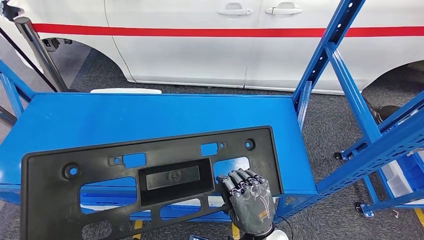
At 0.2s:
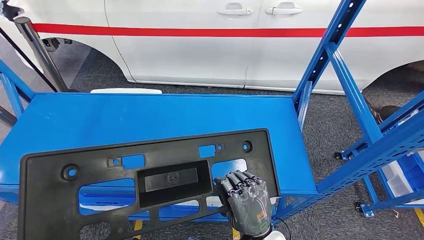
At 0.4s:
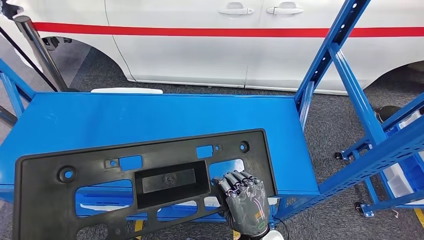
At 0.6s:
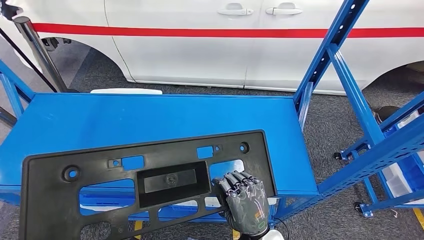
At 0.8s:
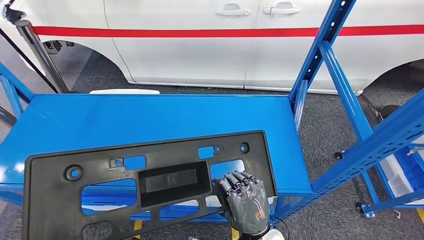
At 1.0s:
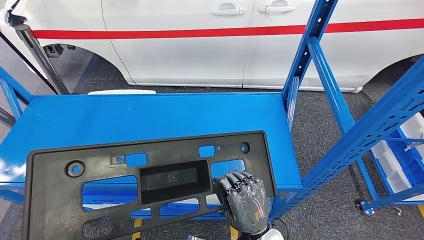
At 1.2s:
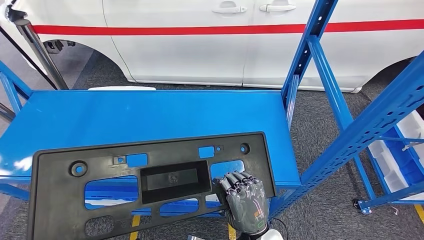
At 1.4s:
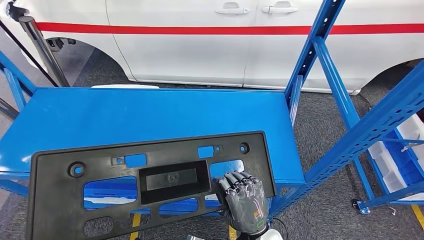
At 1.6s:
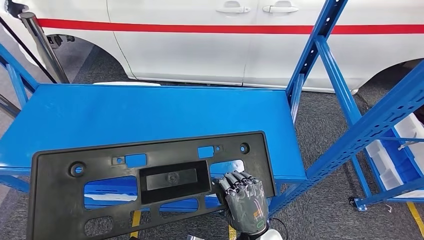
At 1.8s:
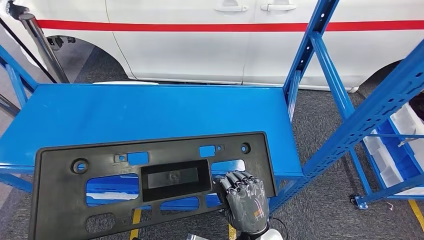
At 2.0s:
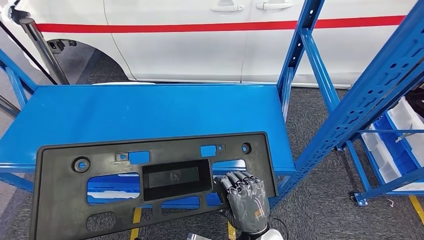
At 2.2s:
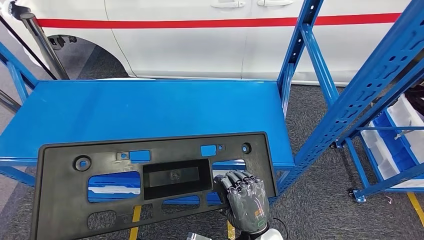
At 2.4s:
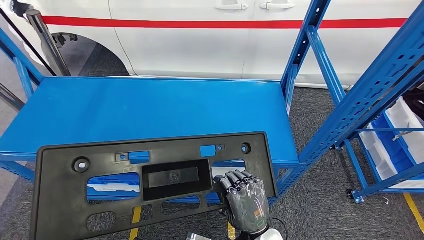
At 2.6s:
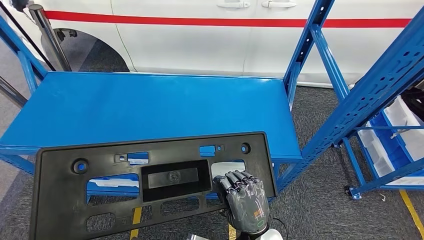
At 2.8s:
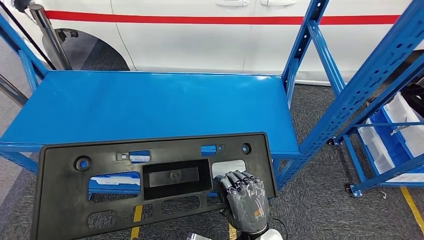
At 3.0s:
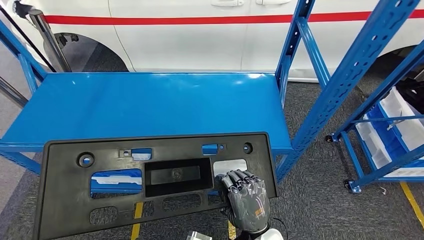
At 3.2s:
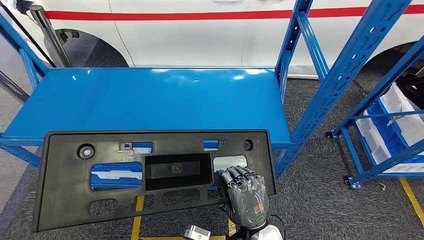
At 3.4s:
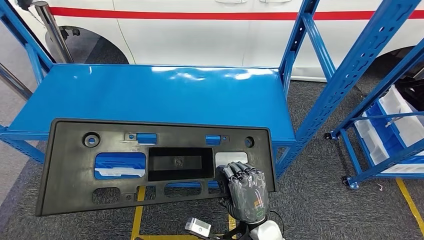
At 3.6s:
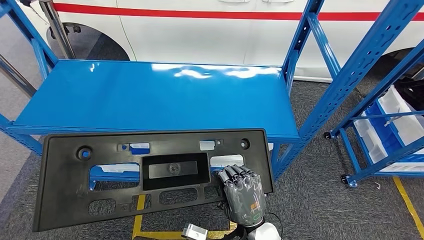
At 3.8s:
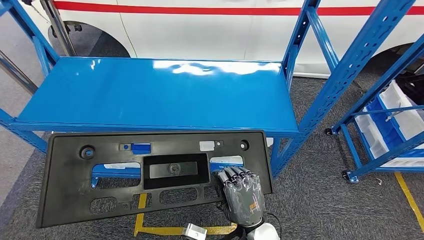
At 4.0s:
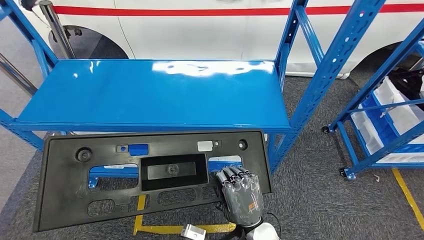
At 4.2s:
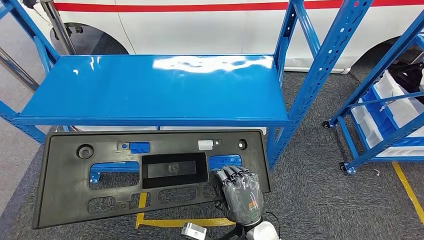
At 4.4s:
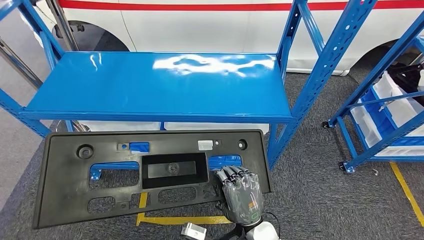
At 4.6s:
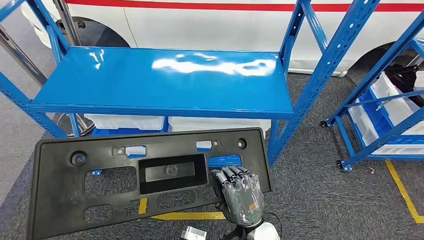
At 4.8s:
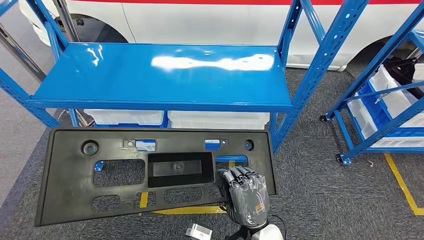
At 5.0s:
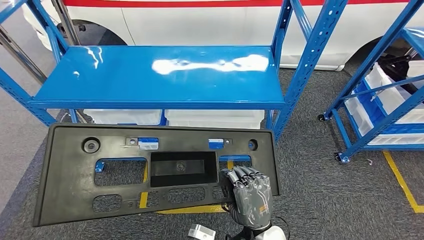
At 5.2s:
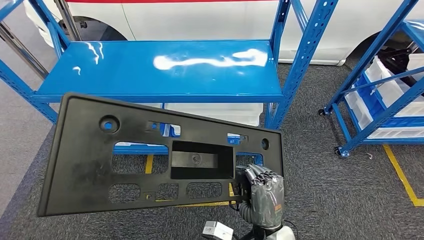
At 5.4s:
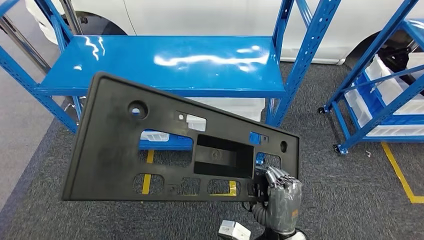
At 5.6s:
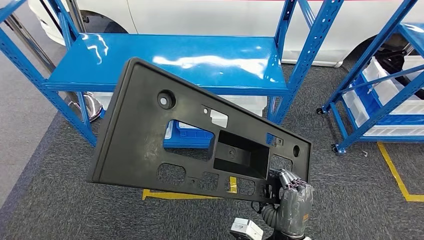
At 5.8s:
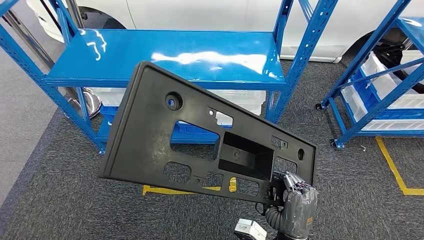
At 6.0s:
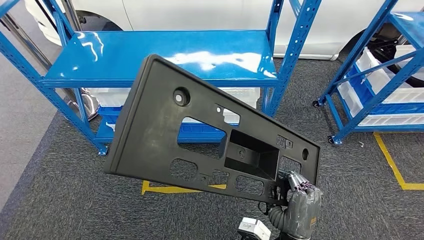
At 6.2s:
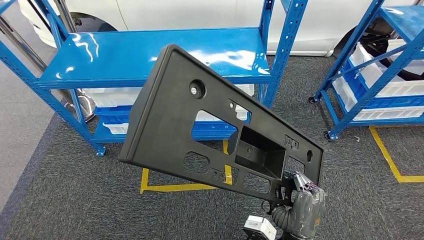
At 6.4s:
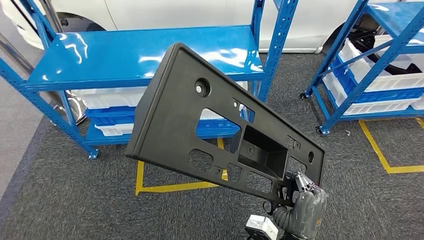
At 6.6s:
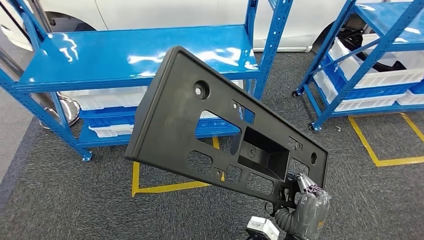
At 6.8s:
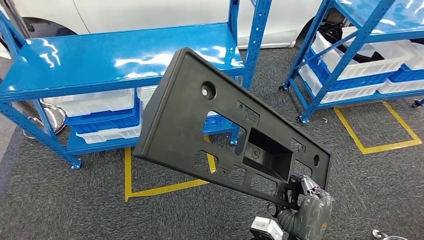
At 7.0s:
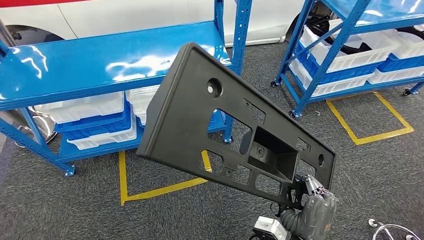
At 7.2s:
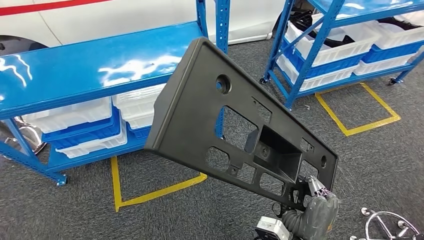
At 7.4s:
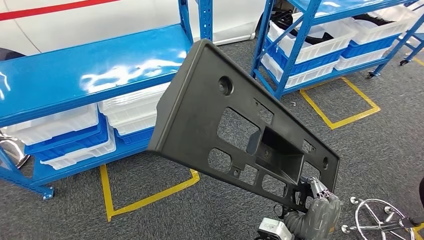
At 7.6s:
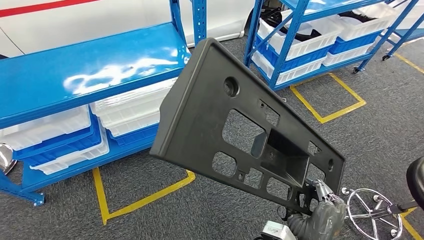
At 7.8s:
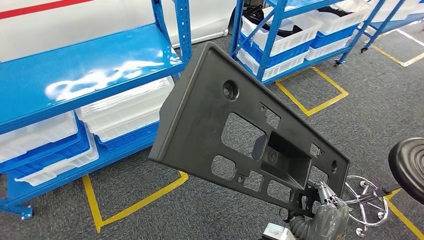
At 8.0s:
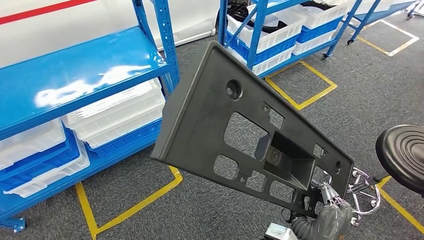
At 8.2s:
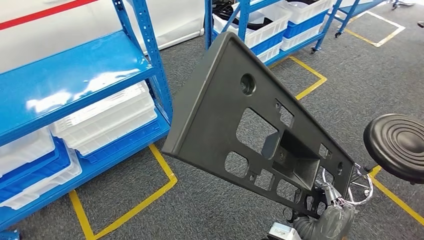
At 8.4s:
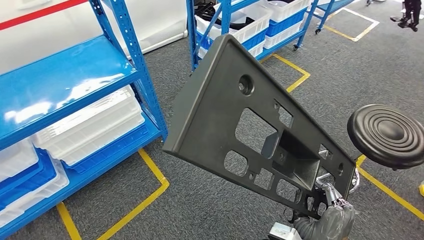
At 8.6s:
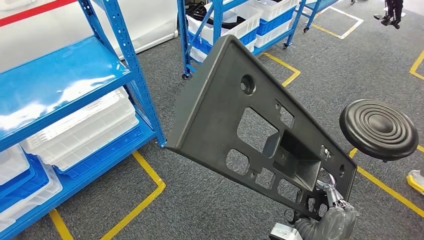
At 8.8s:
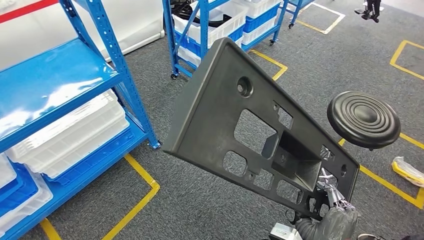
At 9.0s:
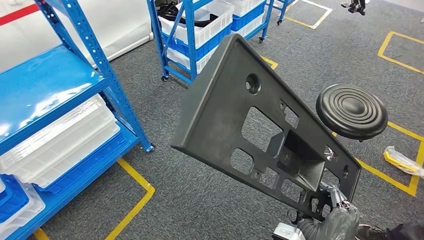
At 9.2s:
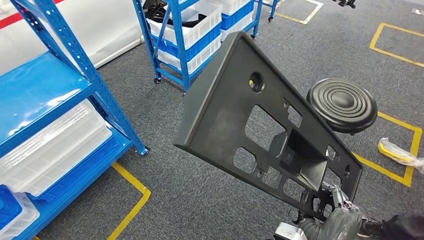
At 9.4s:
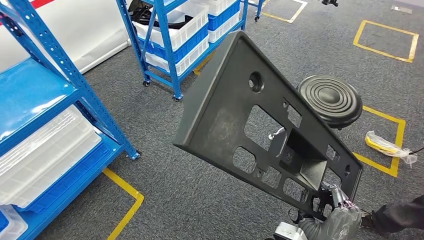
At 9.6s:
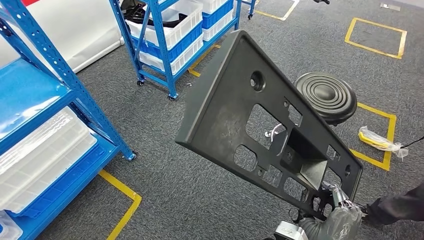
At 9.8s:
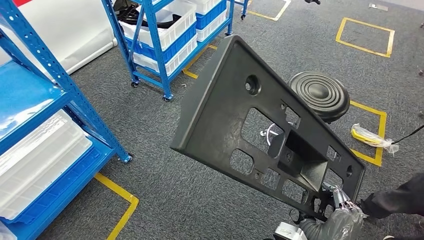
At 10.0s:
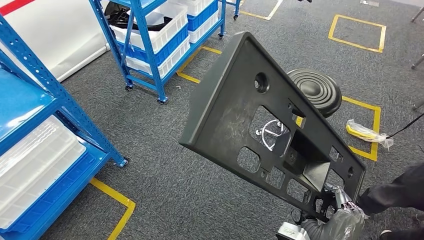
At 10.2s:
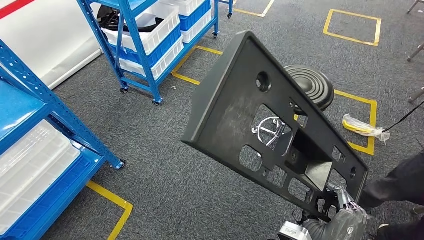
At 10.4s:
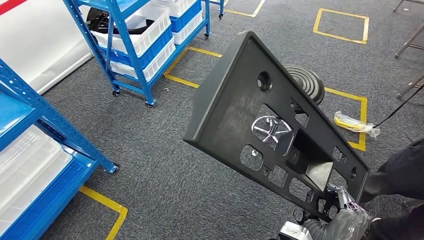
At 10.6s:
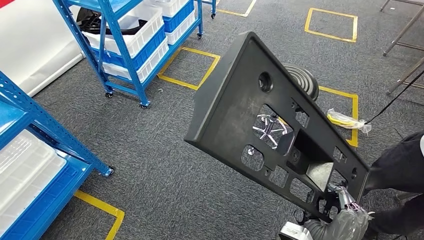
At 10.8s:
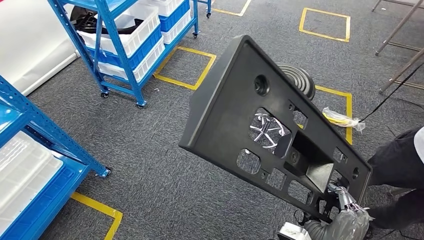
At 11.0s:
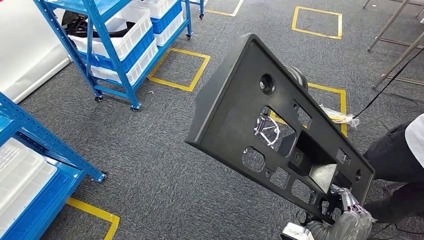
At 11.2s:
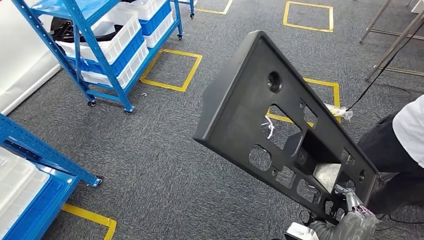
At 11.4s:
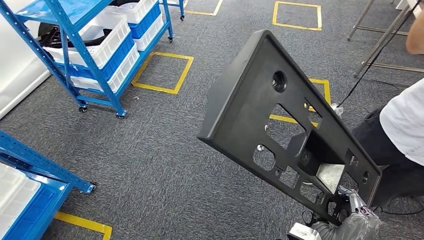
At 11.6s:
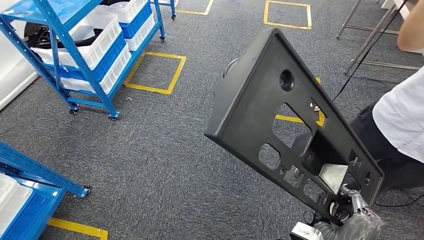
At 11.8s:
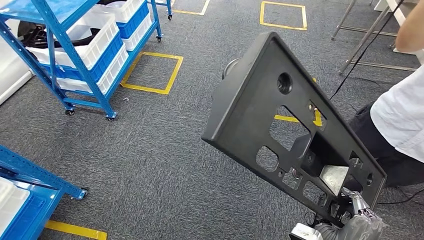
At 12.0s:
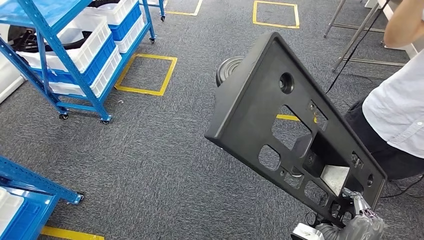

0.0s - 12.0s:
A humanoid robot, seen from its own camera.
Step, 0.0s - 3.2s: Pick up the large material from the shelf.

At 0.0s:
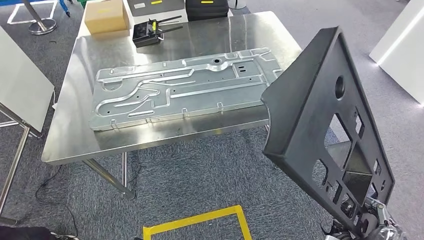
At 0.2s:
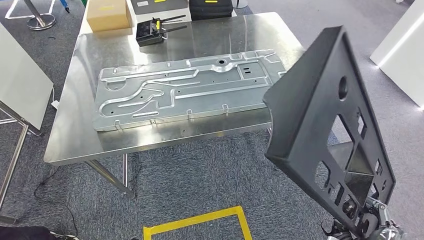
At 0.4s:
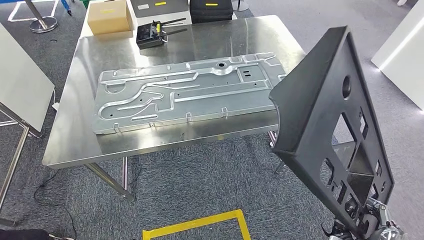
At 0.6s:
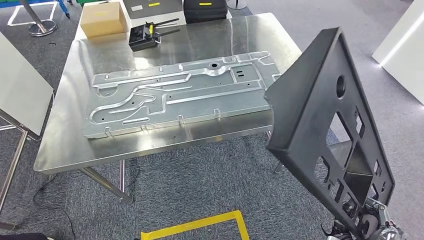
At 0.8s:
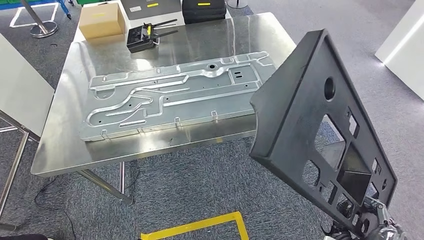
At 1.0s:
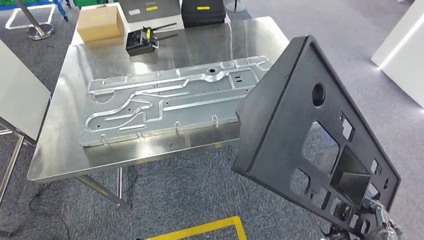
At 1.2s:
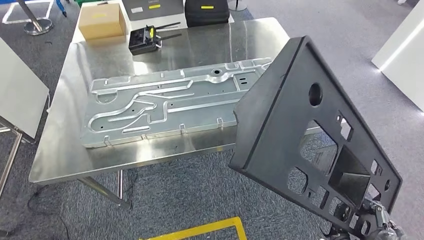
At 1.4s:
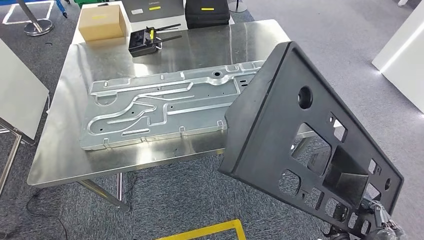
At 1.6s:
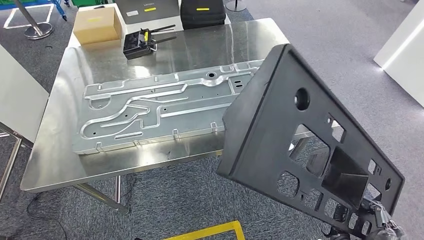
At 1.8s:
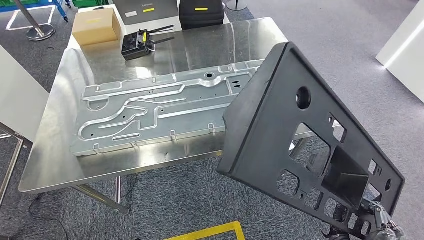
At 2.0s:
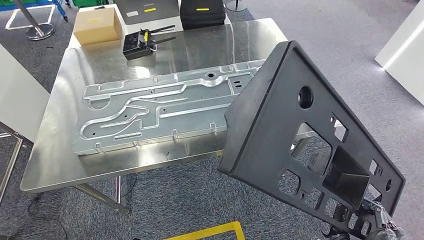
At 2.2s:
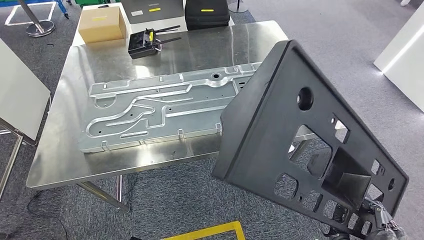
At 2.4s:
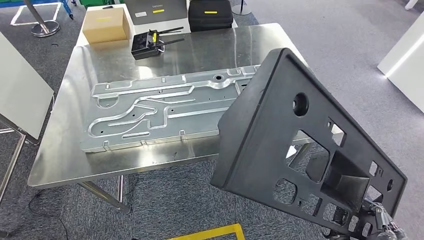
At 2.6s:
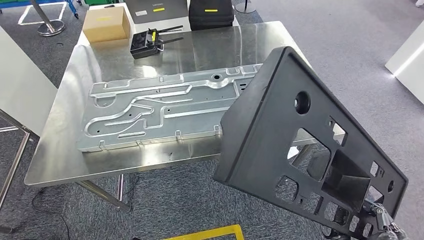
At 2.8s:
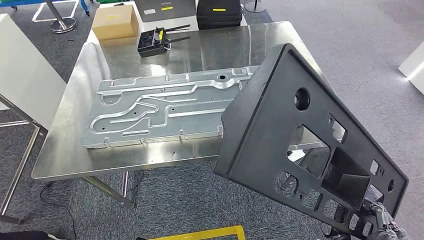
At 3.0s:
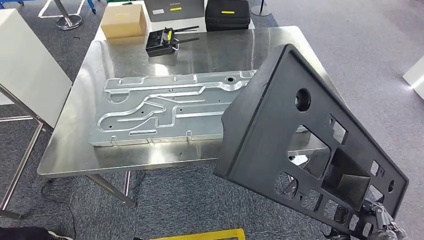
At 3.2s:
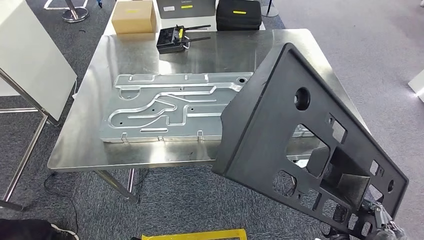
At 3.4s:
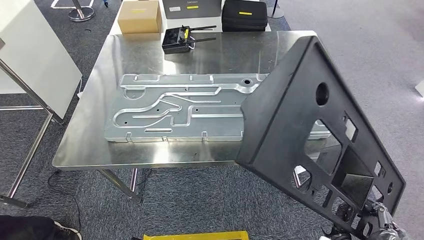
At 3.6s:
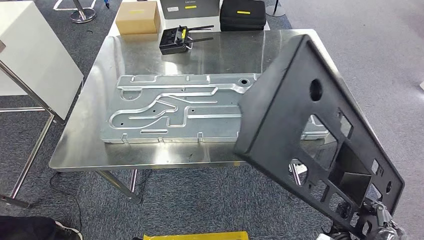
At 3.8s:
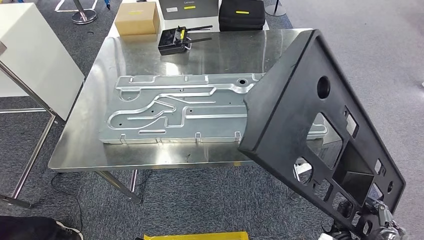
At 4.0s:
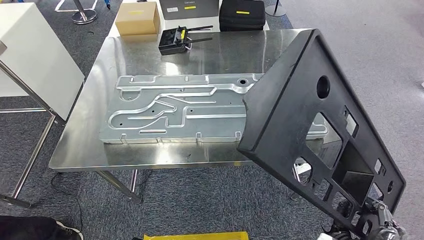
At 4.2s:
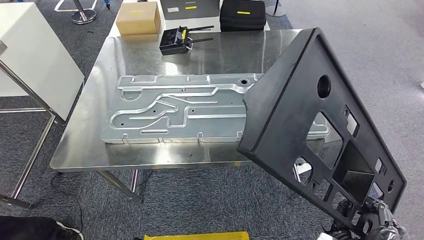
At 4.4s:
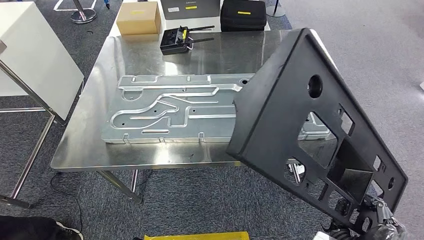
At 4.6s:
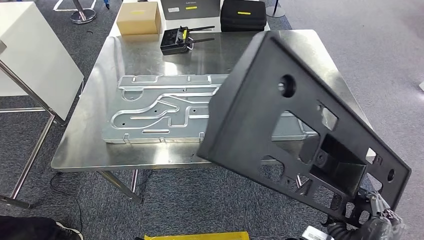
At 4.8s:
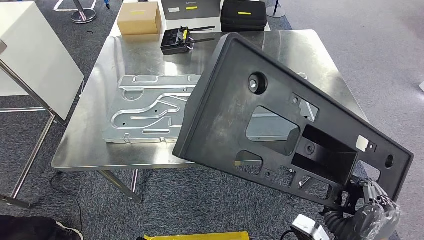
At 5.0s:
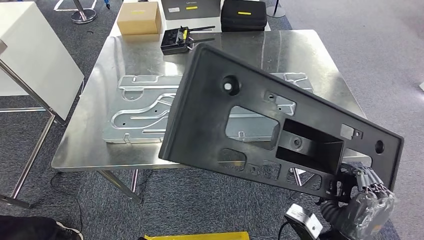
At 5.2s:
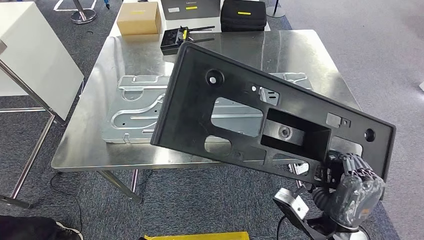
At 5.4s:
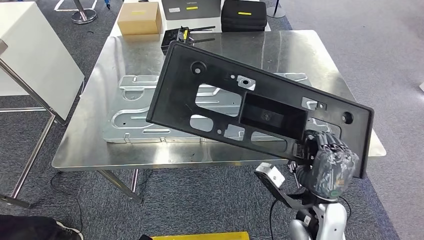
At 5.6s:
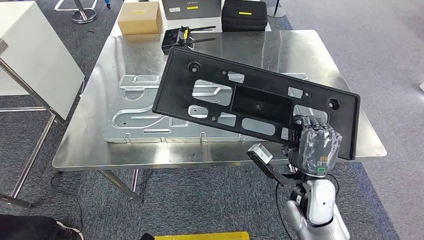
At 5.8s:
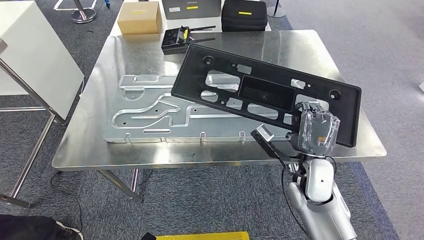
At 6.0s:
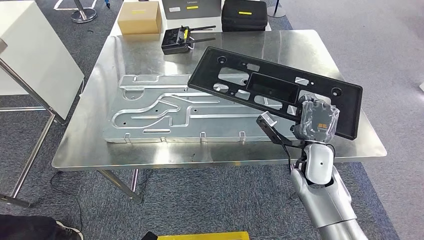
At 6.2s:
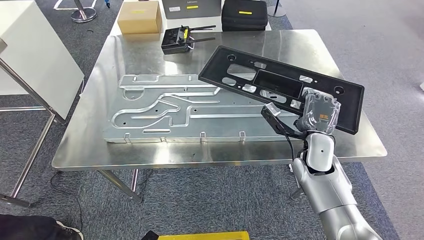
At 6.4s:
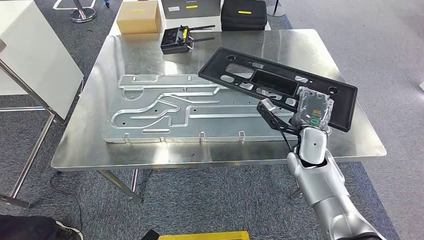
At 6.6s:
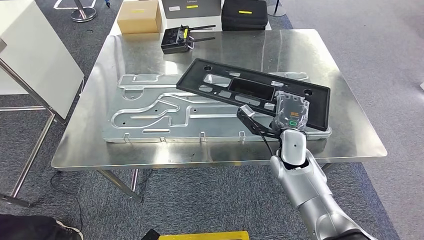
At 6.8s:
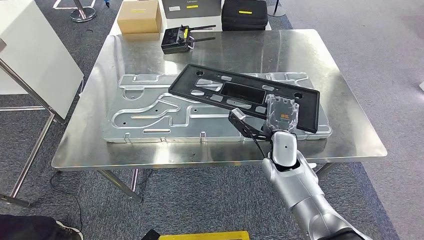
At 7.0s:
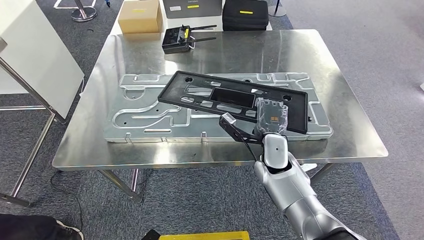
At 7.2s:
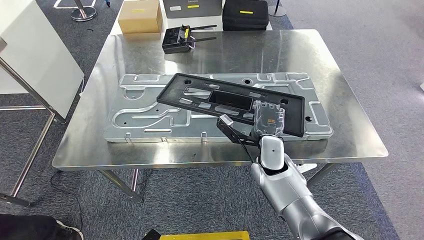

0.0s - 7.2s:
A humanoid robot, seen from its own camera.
Step, 0.0s - 2.6s: Move the large material to the workbench.
